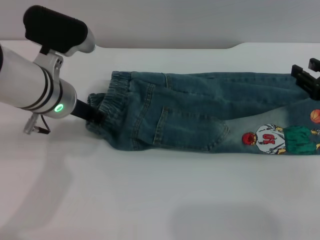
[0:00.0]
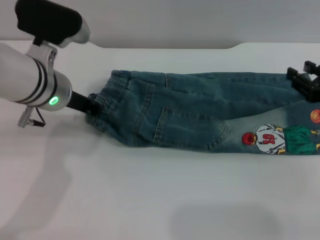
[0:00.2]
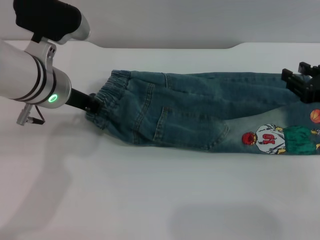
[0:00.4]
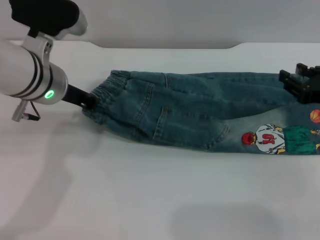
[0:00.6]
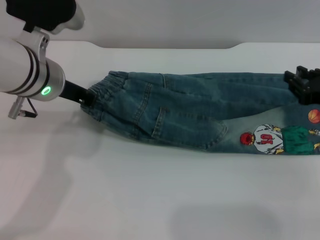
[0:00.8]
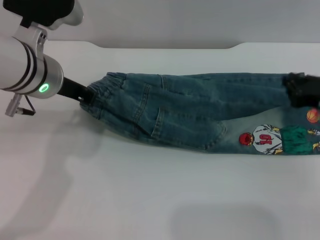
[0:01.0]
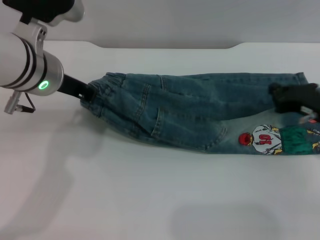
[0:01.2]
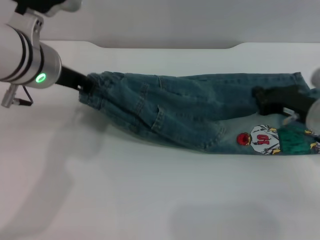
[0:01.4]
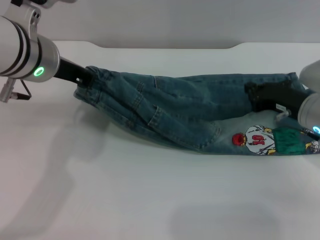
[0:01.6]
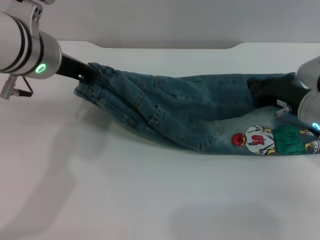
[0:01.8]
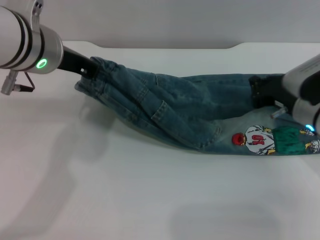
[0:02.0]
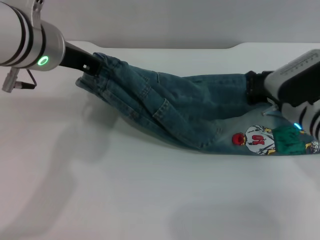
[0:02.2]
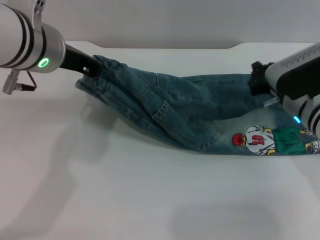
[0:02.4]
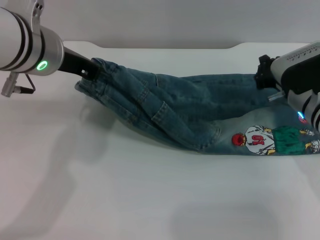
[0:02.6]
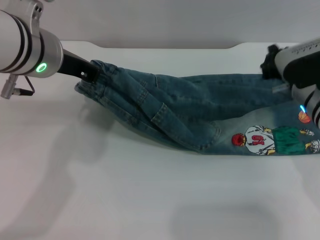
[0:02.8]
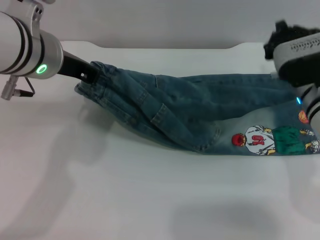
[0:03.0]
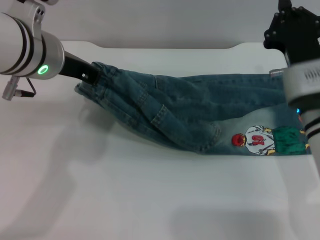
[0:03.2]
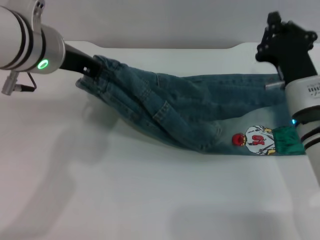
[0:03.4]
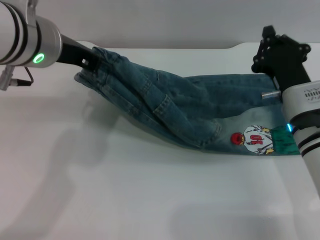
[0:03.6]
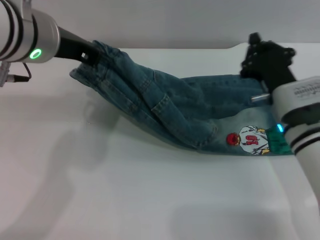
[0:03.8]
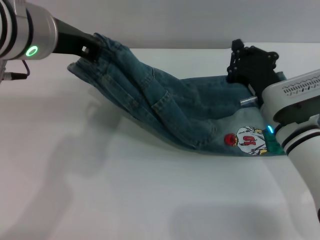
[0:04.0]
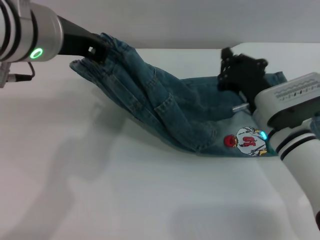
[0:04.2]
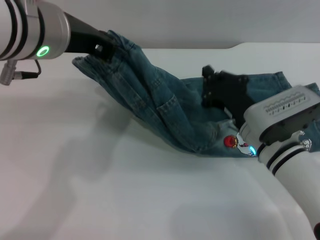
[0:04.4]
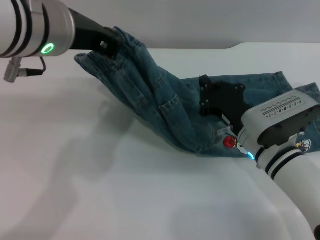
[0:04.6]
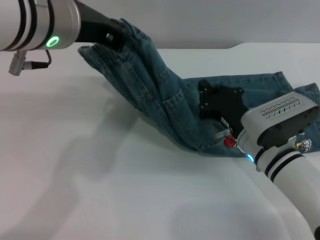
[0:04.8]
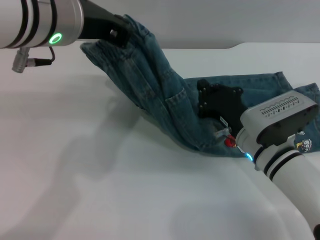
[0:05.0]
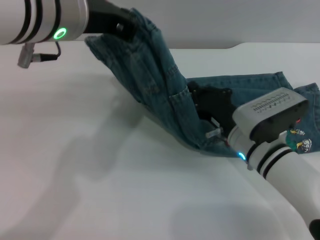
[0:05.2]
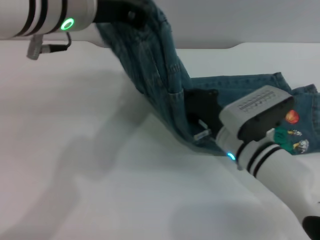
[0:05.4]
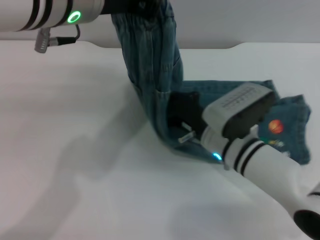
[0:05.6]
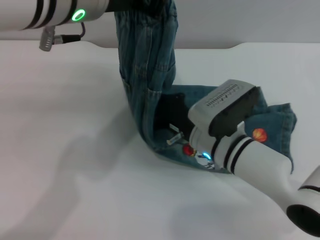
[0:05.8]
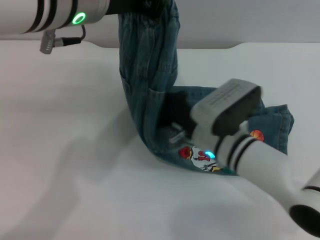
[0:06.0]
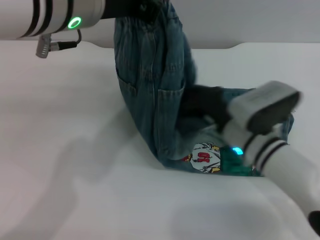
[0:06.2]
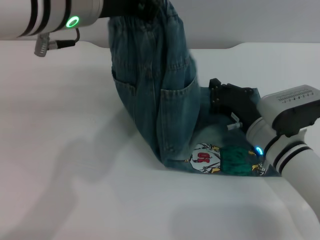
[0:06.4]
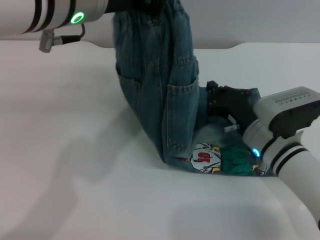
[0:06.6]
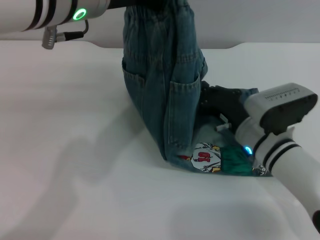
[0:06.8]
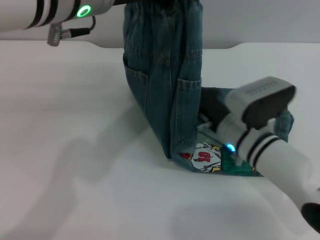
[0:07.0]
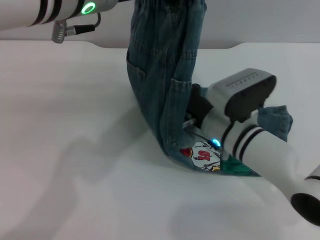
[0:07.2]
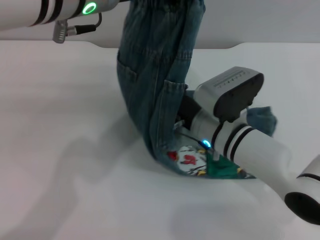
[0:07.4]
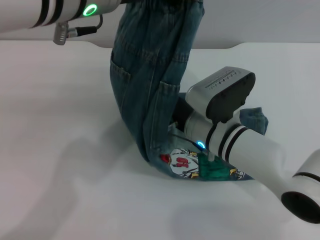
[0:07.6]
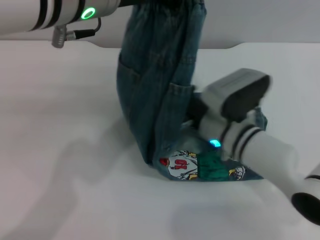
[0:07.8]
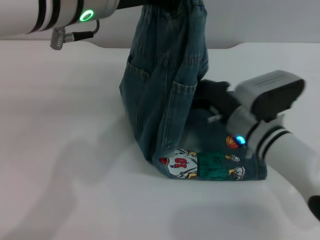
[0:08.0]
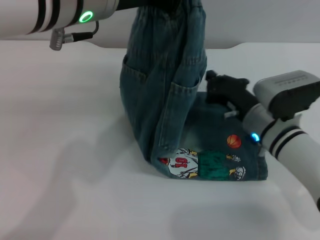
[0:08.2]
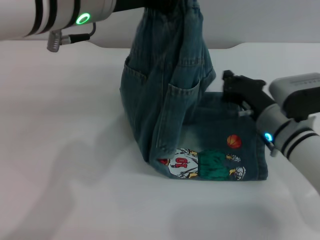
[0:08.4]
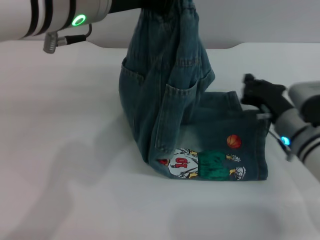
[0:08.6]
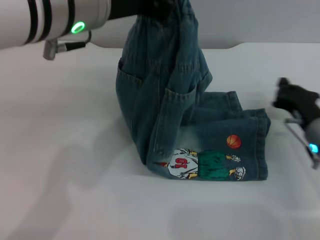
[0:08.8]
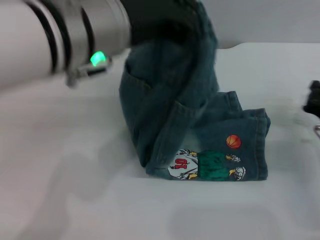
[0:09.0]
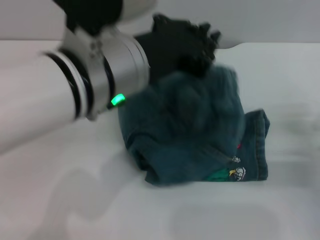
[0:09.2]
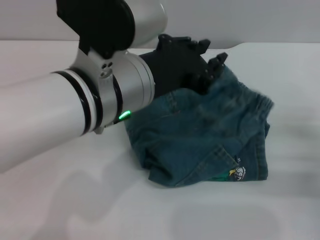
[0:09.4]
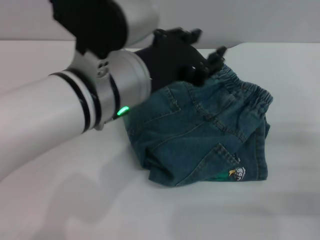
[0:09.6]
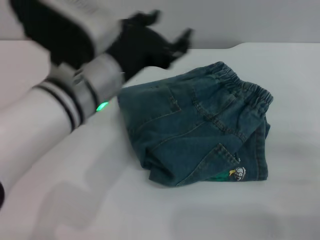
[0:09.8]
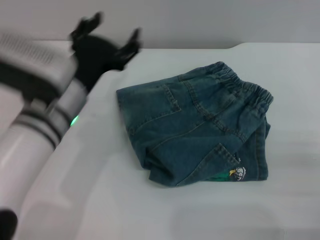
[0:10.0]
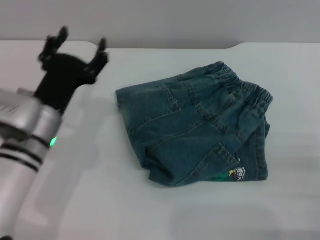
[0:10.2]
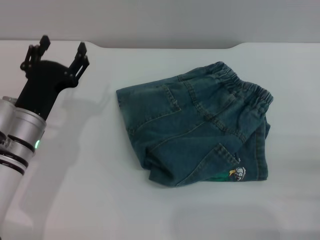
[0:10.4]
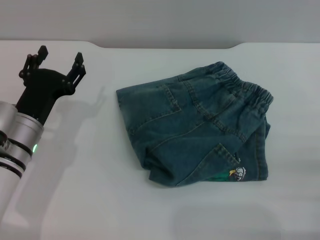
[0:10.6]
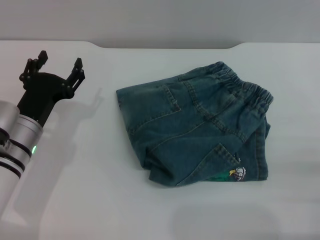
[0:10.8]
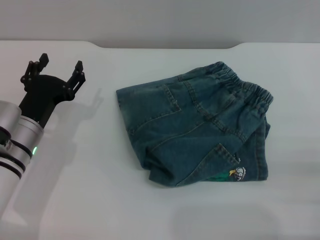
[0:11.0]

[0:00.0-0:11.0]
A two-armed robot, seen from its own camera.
Step, 0:00.0 to 0:09.4: Fold the pants from left to right with the left gripper.
0:00.0 to 0:01.6: The right gripper heads to the left, forward and downward, covering approximately 10 cm, and closes. Meanwhile the left gripper travels upward by some 5 cm.
0:01.6 to 0:03.2: The right gripper moves to the left, some 5 cm.
0:03.2 to 0:04.8: The right gripper shifts some 5 cm downward, while the left gripper shifts roughly 5 cm upward.
0:07.8 to 0:09.4: The right gripper moves to the right, about 20 cm; the left gripper travels downward by some 10 cm.
0:09.4 to 0:11.0: The left gripper is displaced downward and to the left by about 25 cm, and opens up. Meanwhile the right gripper goes about 10 cm backward, and opens its fingers.
